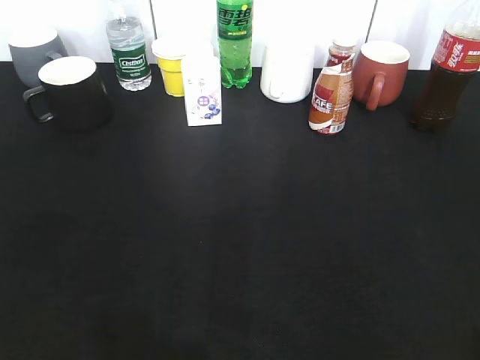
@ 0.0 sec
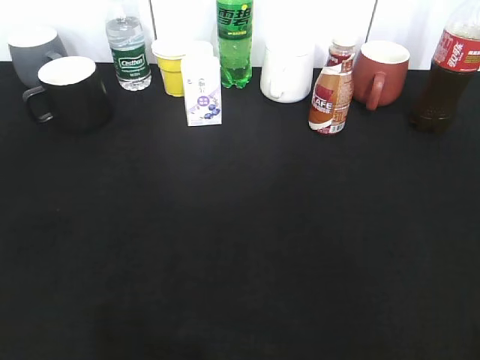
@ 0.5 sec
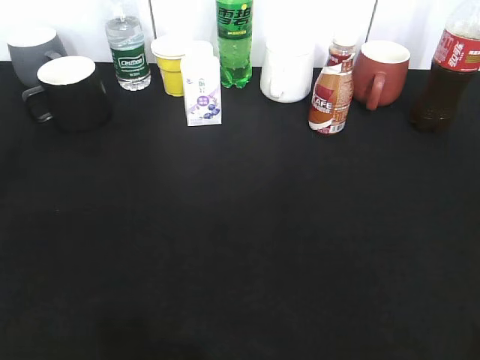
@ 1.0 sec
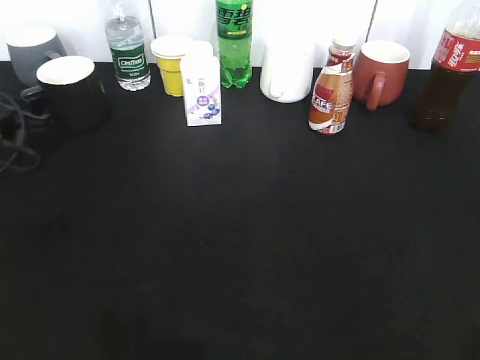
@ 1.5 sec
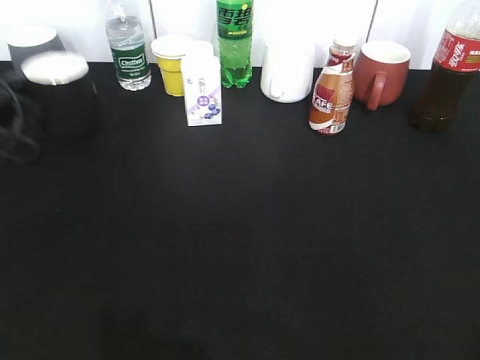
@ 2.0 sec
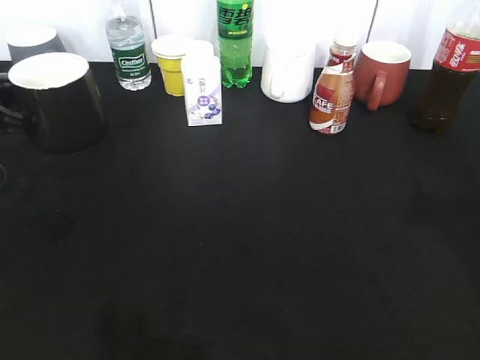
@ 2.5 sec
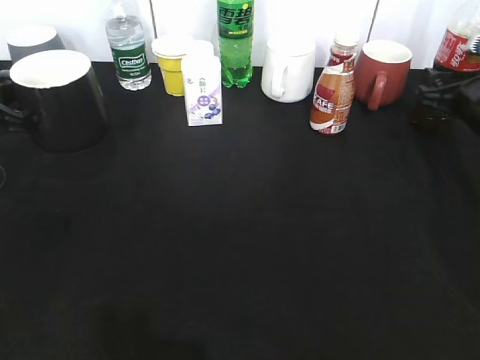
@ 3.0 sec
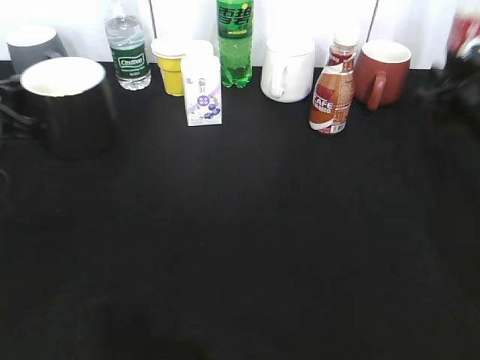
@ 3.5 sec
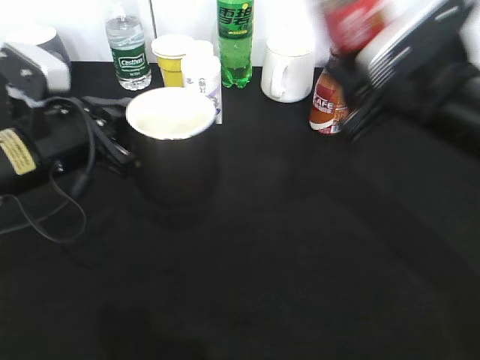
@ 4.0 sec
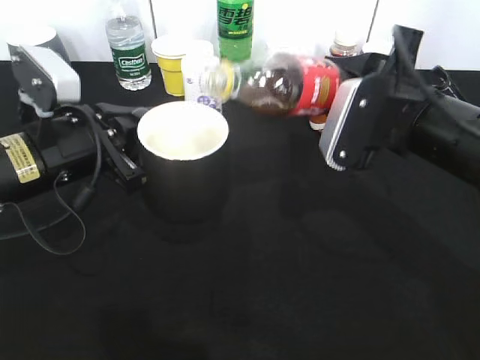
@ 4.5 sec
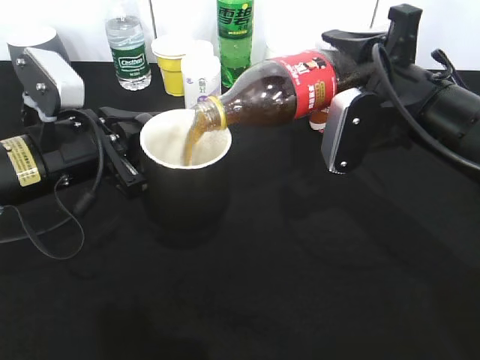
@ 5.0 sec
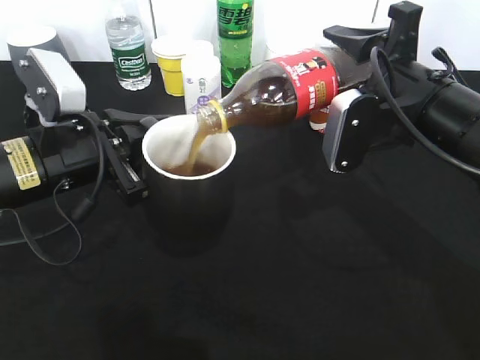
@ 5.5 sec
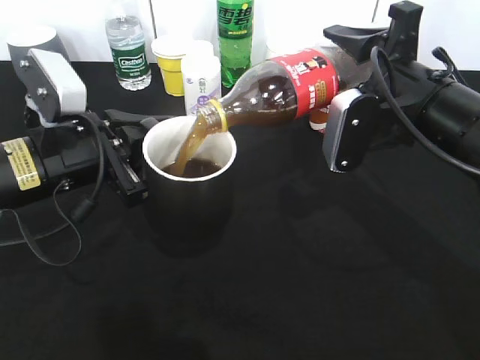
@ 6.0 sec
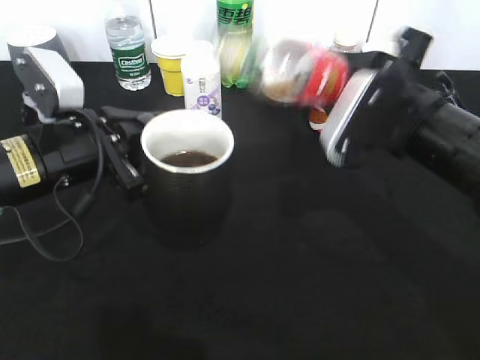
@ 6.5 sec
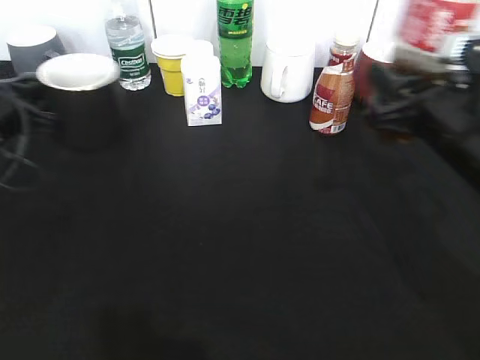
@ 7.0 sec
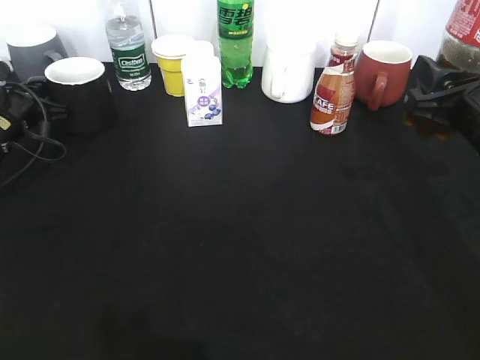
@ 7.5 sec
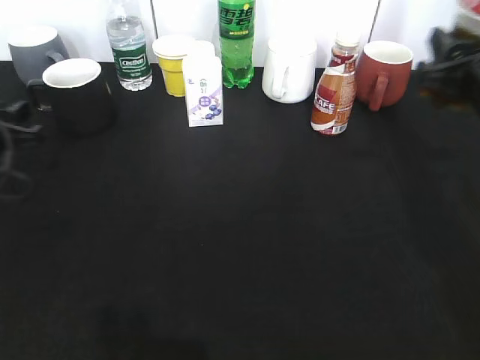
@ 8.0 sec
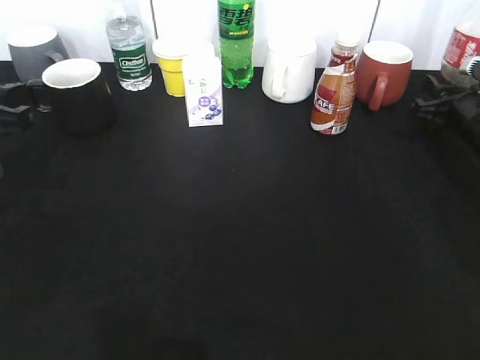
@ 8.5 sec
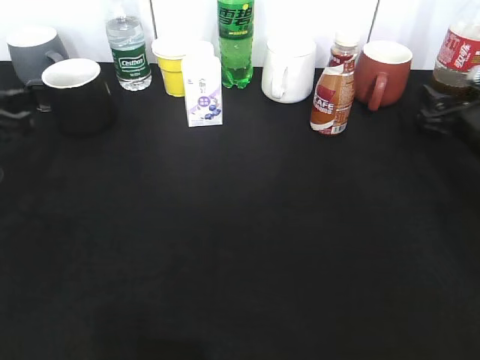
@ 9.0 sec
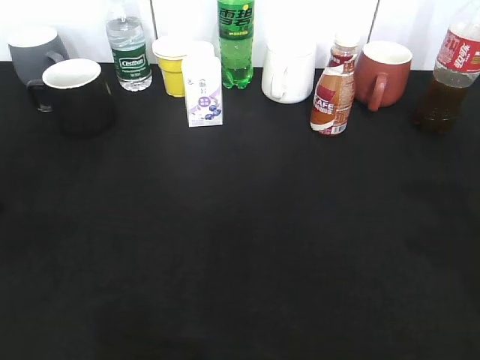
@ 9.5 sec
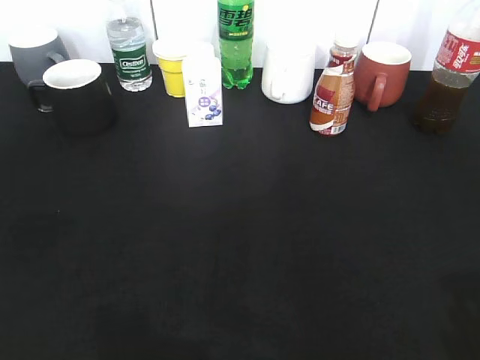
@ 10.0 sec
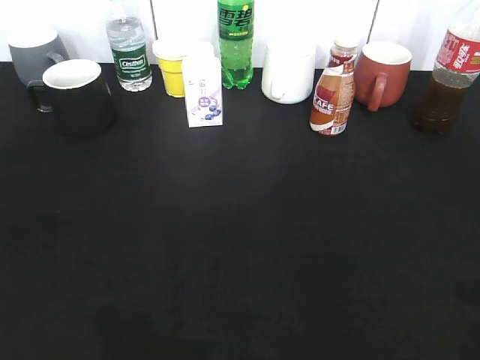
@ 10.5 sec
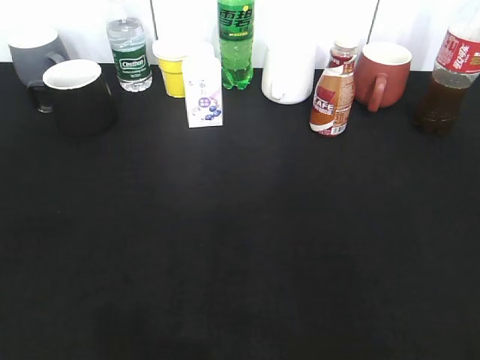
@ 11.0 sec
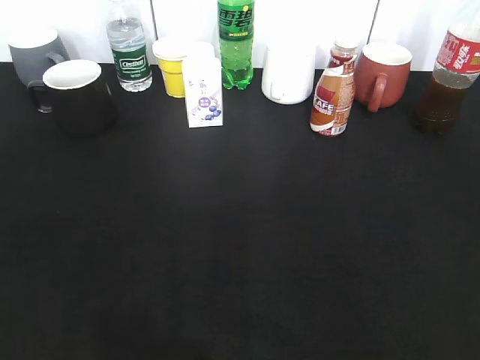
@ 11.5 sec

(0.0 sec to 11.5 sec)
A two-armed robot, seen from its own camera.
Step, 2.0 sec - 2.5 sec: Lift the black cup with left gripper.
Step, 3.5 sec - 6.0 sec: Pour the cola from bottle to cup with right gripper.
Step, 6.5 sec - 8.0 sec: Place the black cup on the table with left gripper.
Step, 8.5 sec - 9.0 sec: Place the cola bottle on the table with right gripper.
0.0 sec - 2.0 sec: The left gripper moves forward, some 40 cm, and closes.
2.0 sec - 4.0 sec: The left gripper travels to the right and backward by approximately 20 cm. The right gripper travels forward and to the left by approximately 30 cm, and closes up.
6.0 sec - 7.5 sec: The left gripper travels forward, to the left and downward by roughly 20 cm, while the right gripper goes approximately 10 cm to the right.
7.5 sec - 9.5 sec: The left gripper goes some 25 cm backward and upward, and opens up. Meanwhile the right gripper shifts roughly 10 cm backward and upward, and opens its fingers.
9.5 sec - 11.5 sec: The grippers both shift backward by approximately 20 cm.

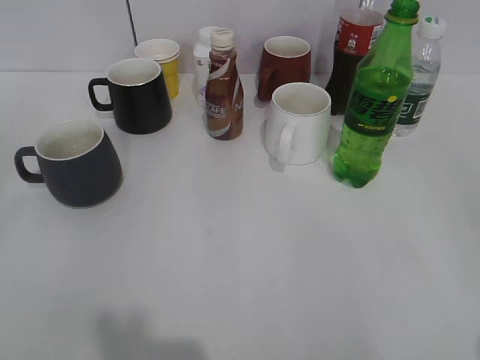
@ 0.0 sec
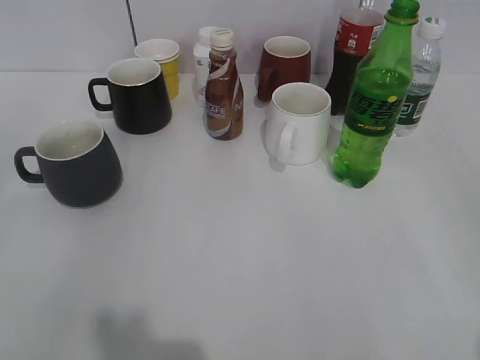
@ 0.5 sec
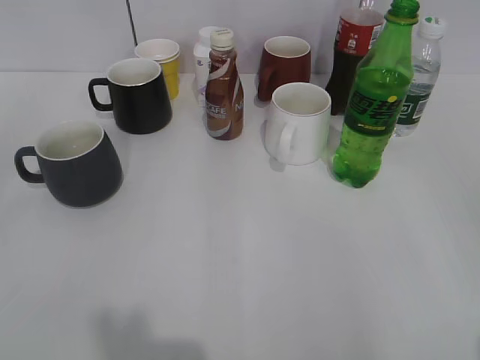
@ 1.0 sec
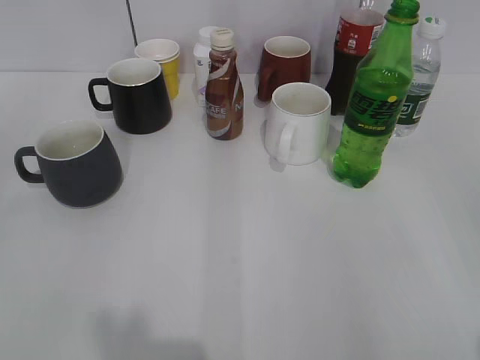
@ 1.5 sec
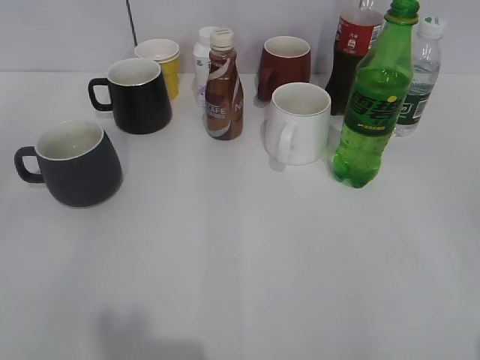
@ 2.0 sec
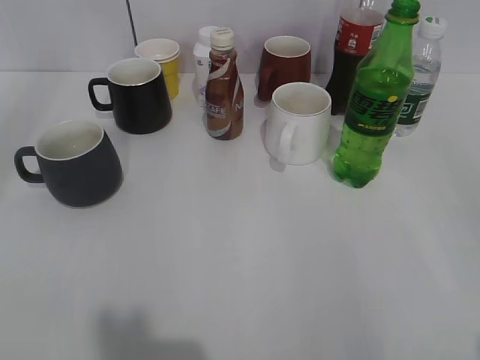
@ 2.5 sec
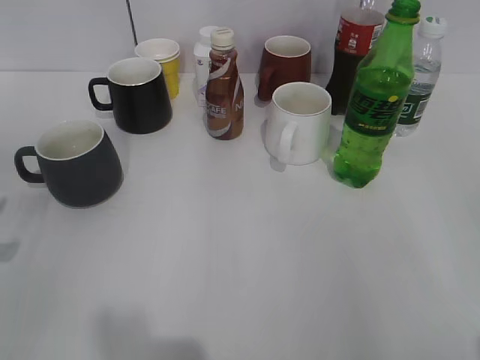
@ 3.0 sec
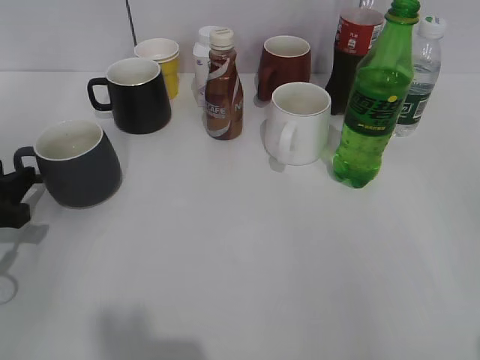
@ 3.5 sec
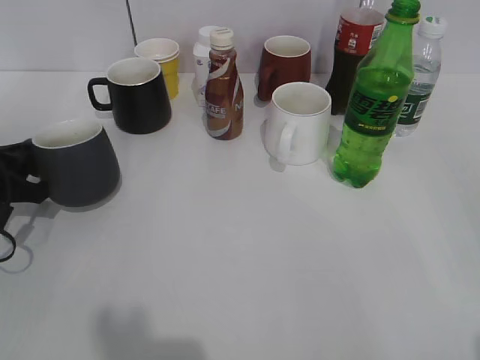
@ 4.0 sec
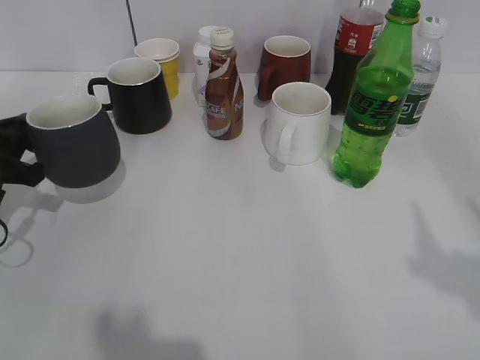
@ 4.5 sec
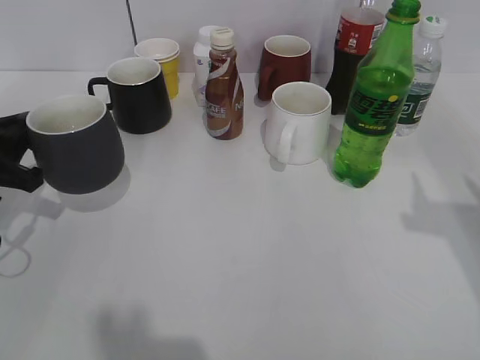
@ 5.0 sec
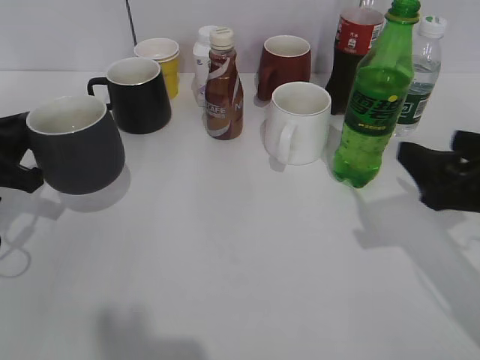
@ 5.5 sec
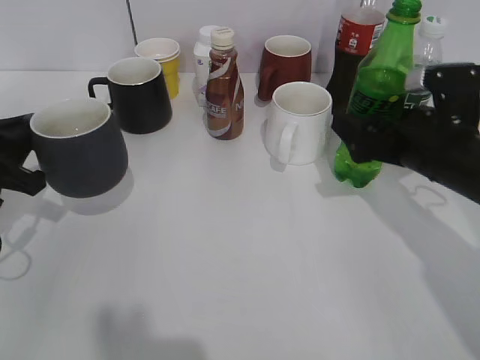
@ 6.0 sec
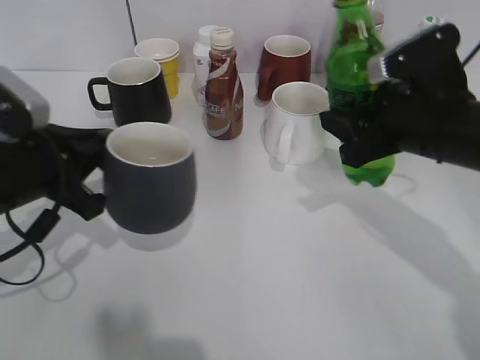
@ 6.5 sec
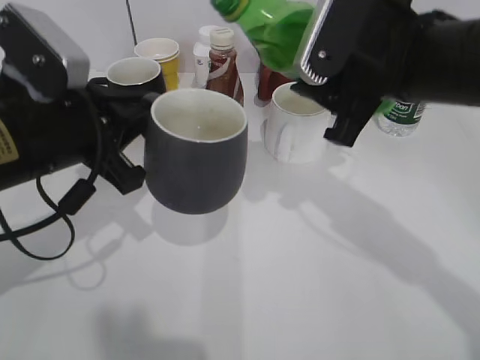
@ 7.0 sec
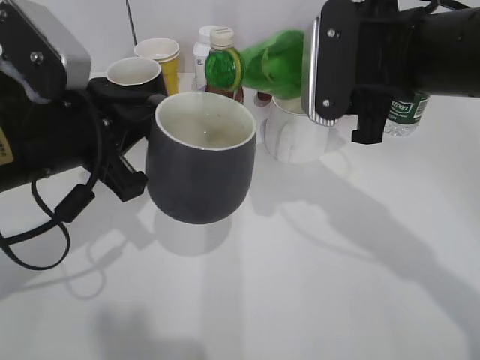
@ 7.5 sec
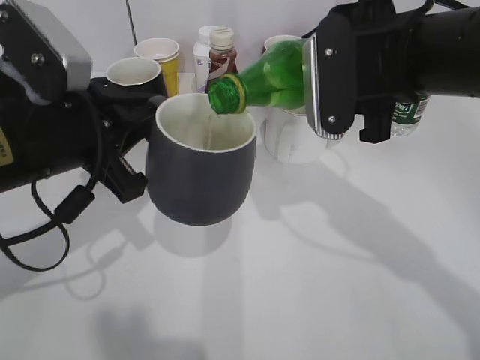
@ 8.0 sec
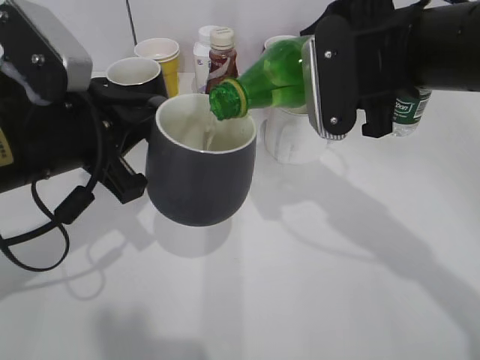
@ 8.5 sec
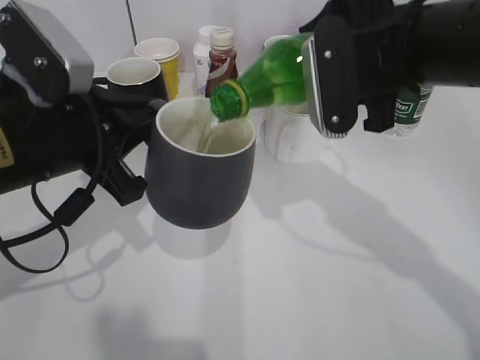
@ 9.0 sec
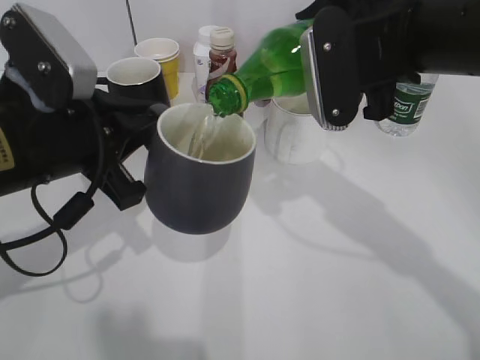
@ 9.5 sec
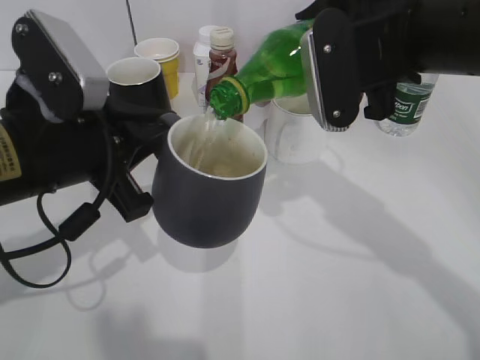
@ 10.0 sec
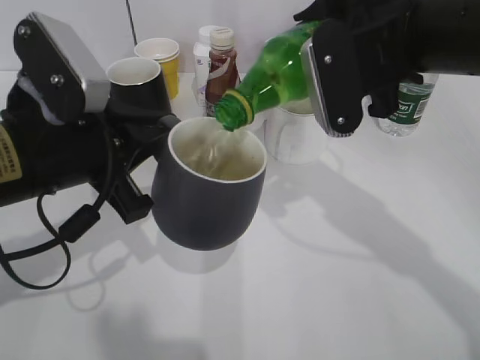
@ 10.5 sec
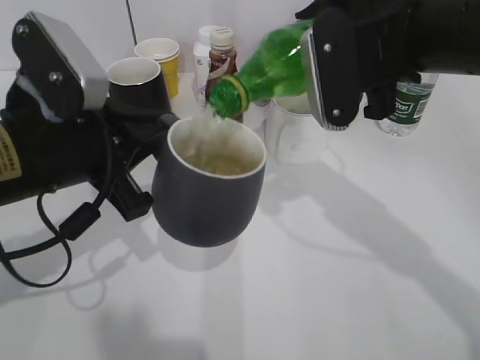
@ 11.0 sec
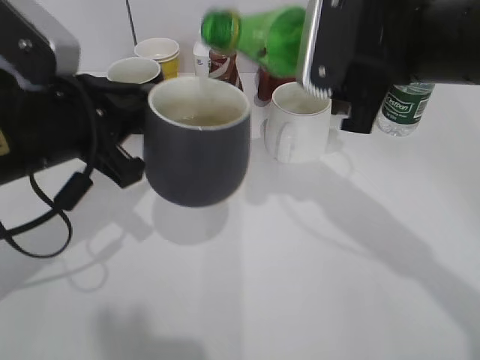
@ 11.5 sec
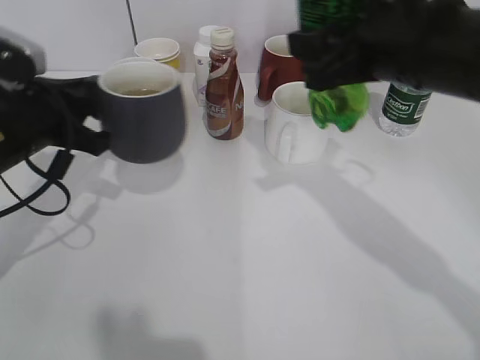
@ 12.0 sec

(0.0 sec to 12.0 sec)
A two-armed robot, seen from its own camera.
Step, 2.0 sec - 3.5 sec: Grasp the grey cup with left gripper.
Step, 5.5 sec - 6.0 sec: Grasp the bottle with sprite with right gripper.
Step, 6.5 sec - 11.5 sec: Pour the sprite from bottle to cup with right gripper.
2.0 sec - 4.0 sec: The left gripper shifts some 30 cm forward and downward, and closes its fingers.
4.0 sec - 6.0 sec: The right gripper shifts approximately 30 cm forward and downward.
6.0 sec - 8.0 sec: The right gripper heads upward and to the left, covering roughly 15 cm, and closes its fingers; the left gripper moves to the right and upward, approximately 15 cm.
8.0 sec - 10.0 sec: There are only small adjustments of the grippers.
10.0 sec - 12.0 sec: The left gripper moves forward and to the left, approximately 10 cm.

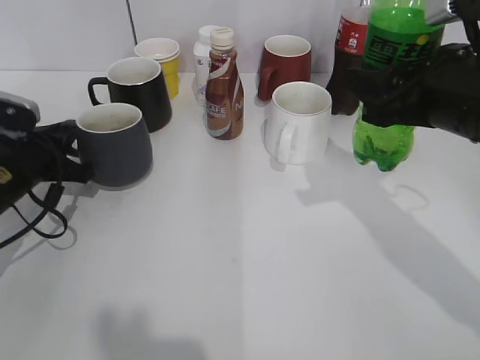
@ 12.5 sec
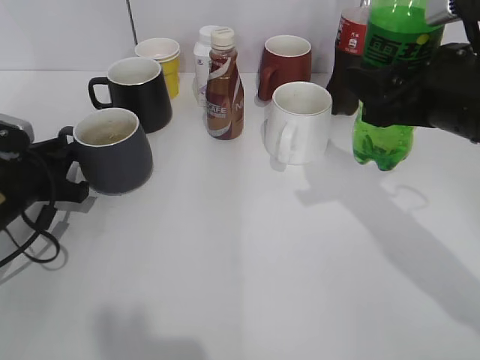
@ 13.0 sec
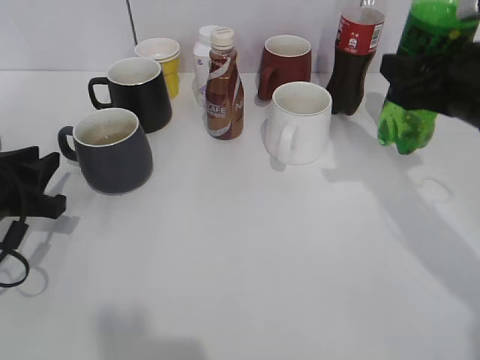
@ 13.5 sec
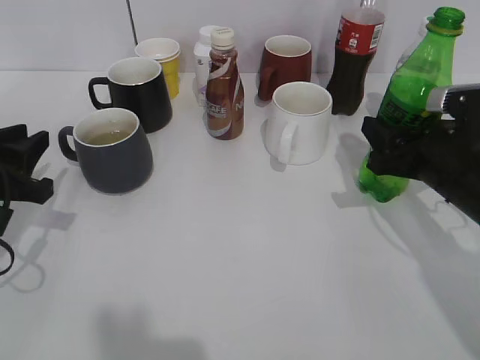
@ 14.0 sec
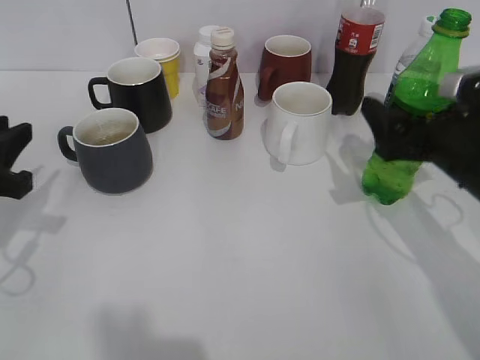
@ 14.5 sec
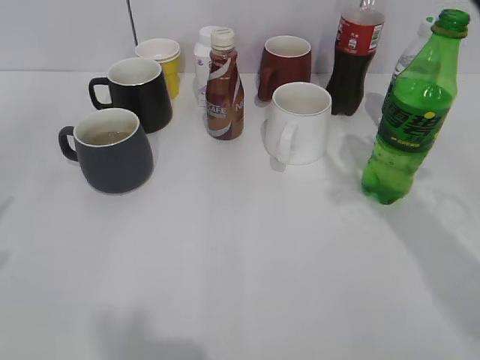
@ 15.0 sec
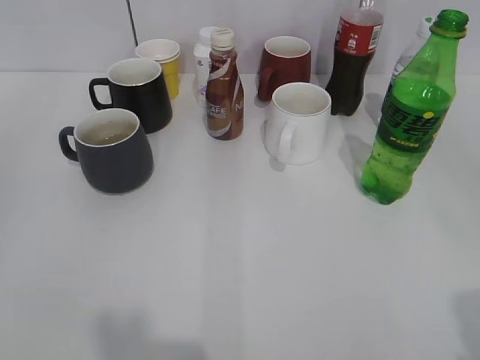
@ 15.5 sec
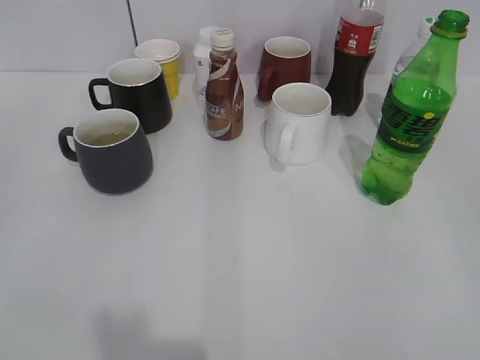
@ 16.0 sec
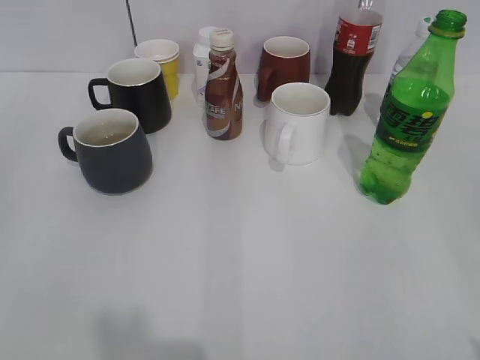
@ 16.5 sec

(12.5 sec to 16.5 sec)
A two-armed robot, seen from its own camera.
Step, 13.5 sec - 14.0 sec: Place the sprite bottle on the table with right gripper.
12.5 sec - 14.5 sec: The right gripper is displaced downward by approximately 10 cm, and opens its fingers; the left gripper goes approximately 10 cm backward and upward, and opens.
14.5 sec - 16.5 sec: Both grippers move backward and upward, roughly 25 cm. The left gripper opens.
